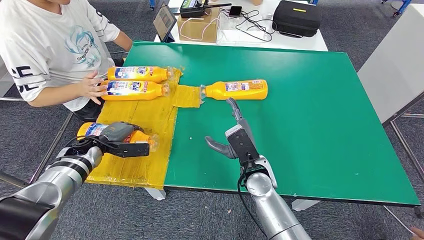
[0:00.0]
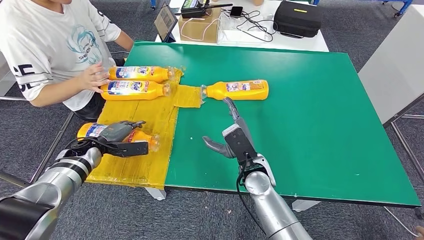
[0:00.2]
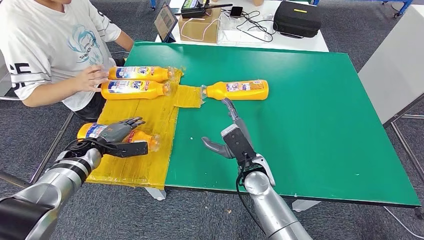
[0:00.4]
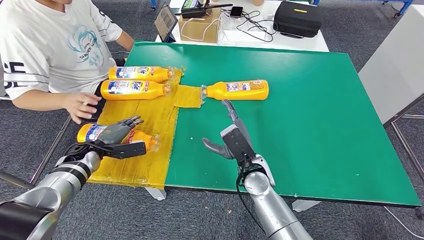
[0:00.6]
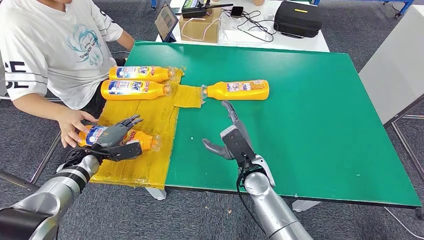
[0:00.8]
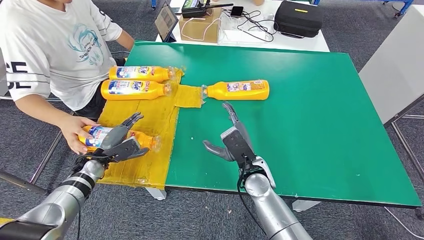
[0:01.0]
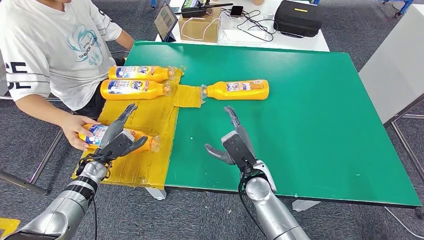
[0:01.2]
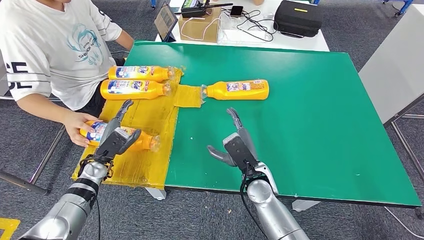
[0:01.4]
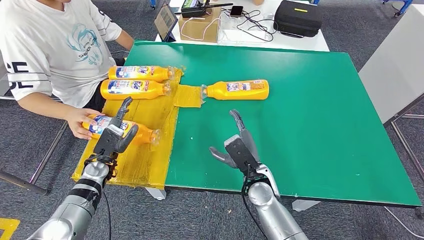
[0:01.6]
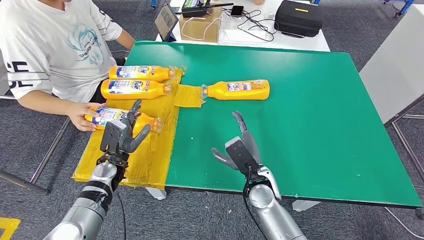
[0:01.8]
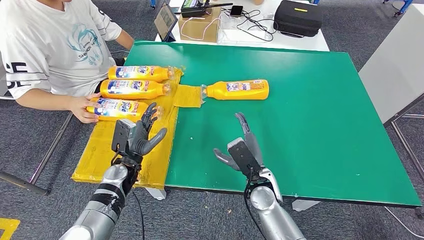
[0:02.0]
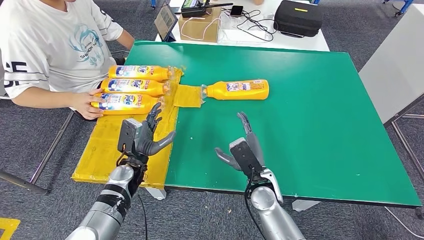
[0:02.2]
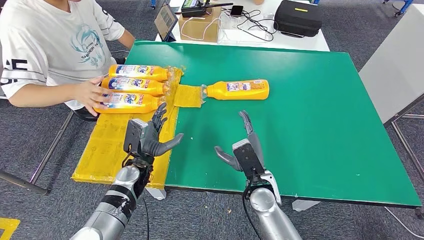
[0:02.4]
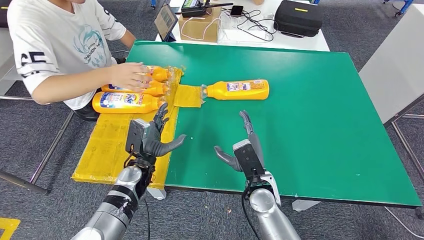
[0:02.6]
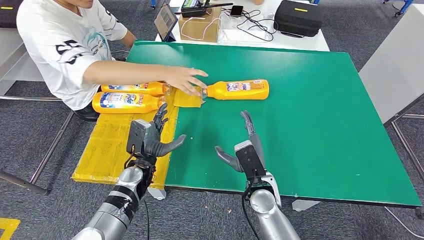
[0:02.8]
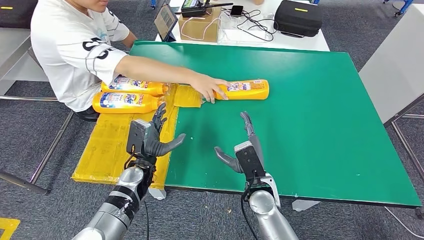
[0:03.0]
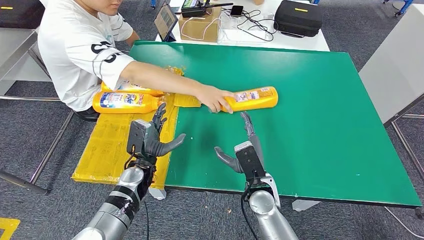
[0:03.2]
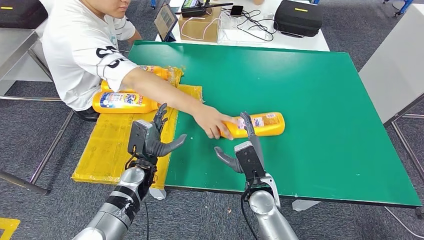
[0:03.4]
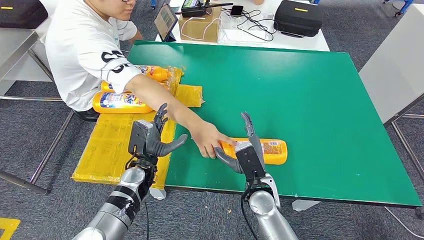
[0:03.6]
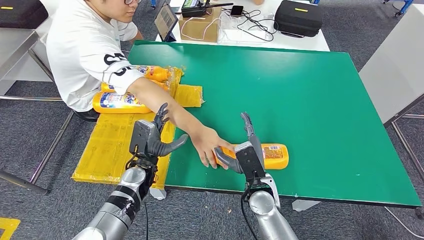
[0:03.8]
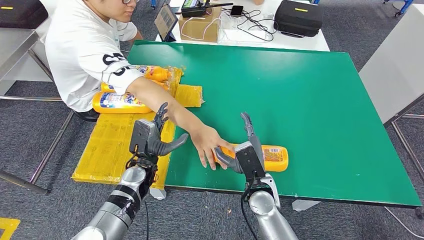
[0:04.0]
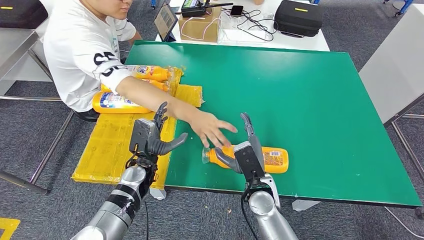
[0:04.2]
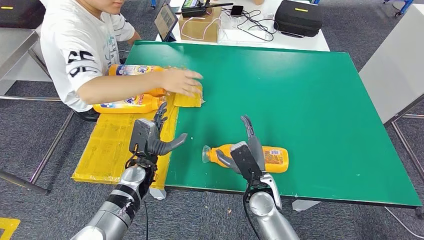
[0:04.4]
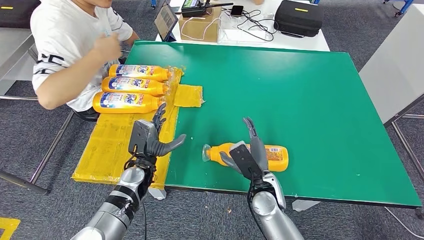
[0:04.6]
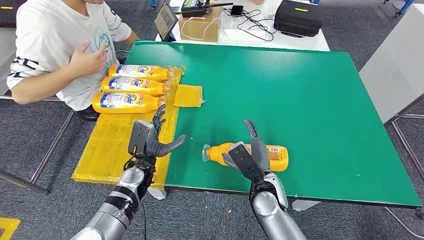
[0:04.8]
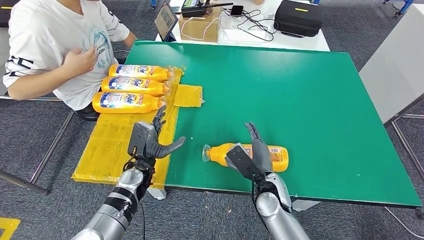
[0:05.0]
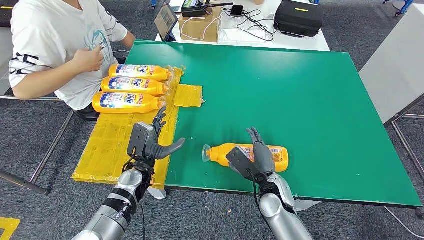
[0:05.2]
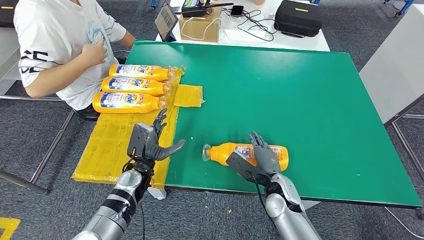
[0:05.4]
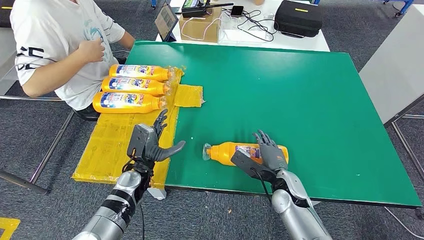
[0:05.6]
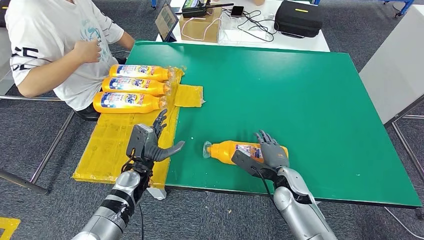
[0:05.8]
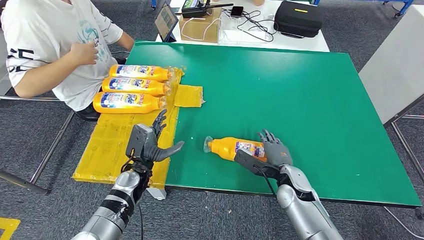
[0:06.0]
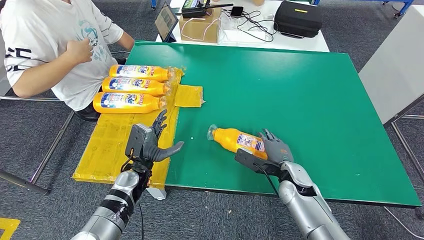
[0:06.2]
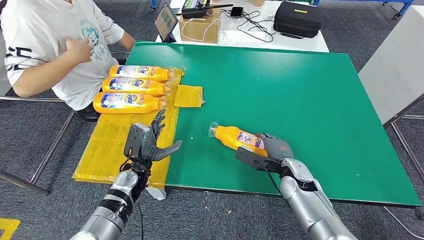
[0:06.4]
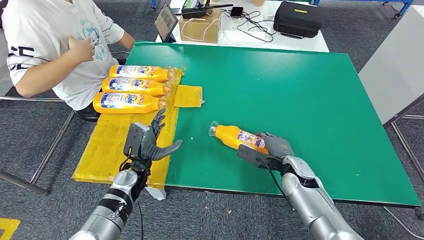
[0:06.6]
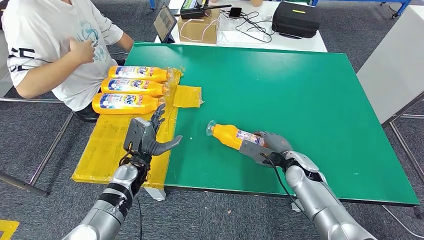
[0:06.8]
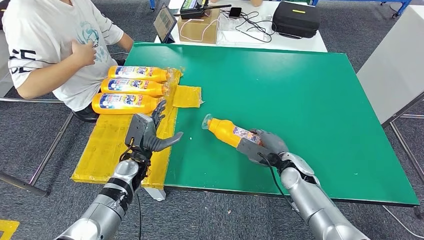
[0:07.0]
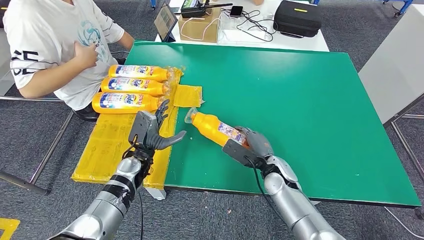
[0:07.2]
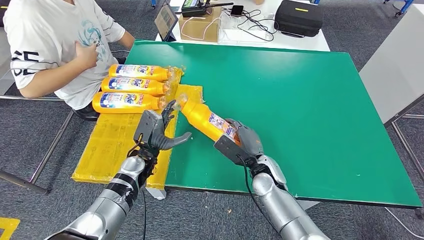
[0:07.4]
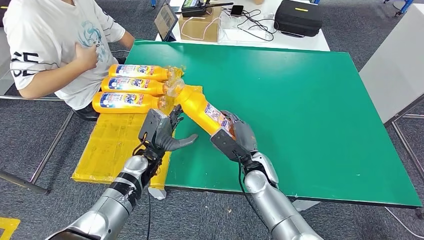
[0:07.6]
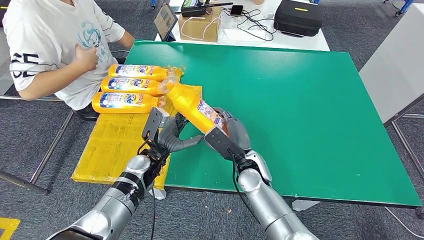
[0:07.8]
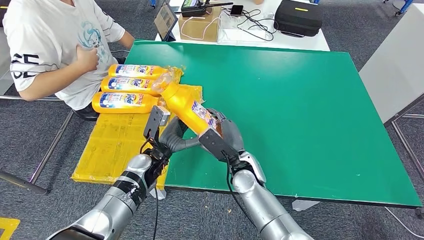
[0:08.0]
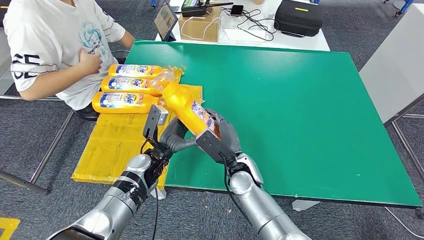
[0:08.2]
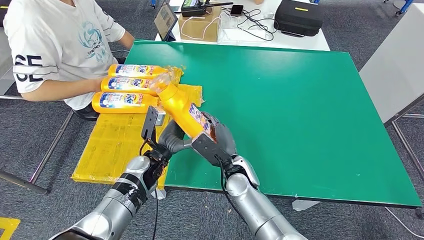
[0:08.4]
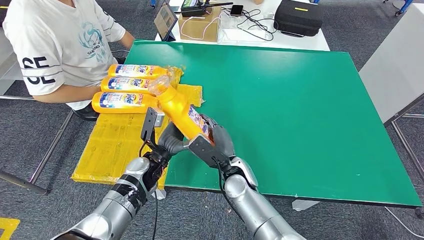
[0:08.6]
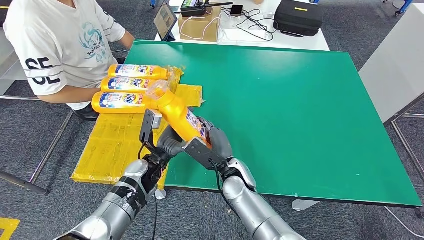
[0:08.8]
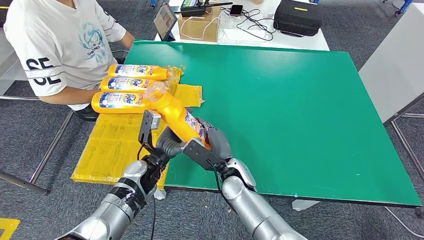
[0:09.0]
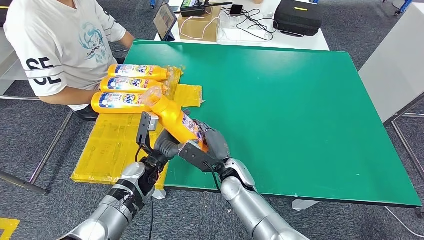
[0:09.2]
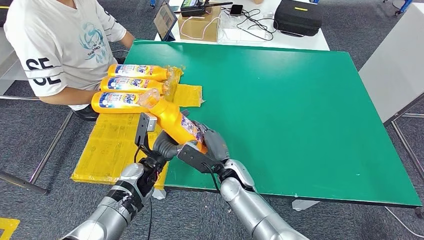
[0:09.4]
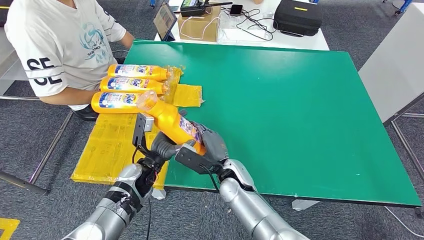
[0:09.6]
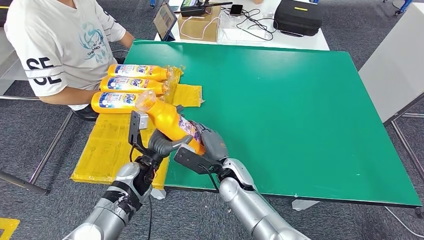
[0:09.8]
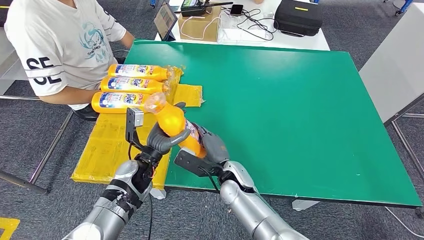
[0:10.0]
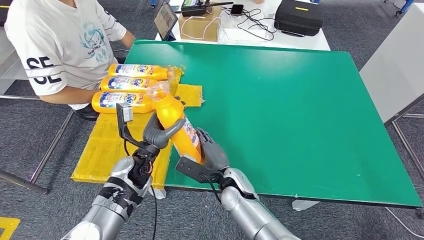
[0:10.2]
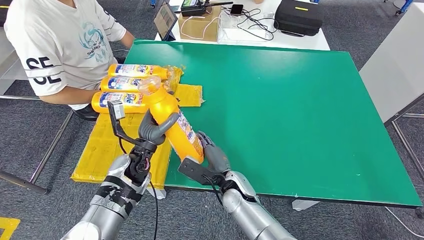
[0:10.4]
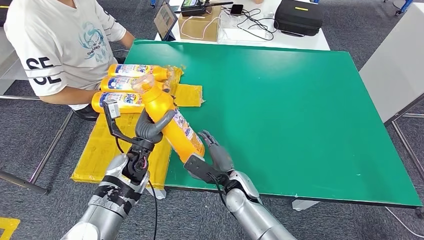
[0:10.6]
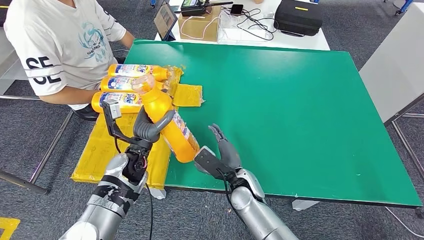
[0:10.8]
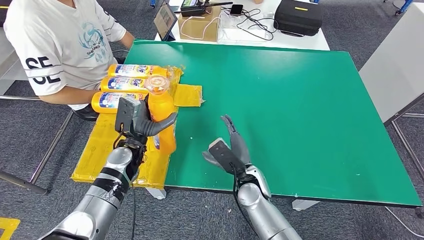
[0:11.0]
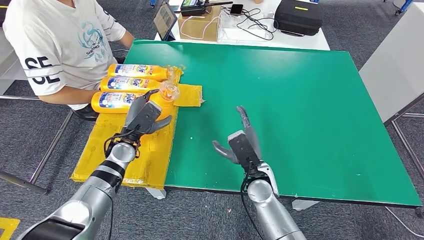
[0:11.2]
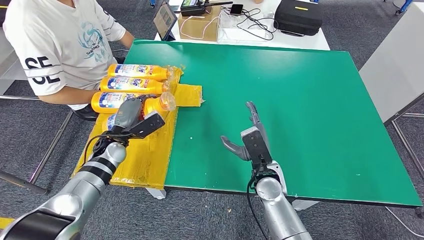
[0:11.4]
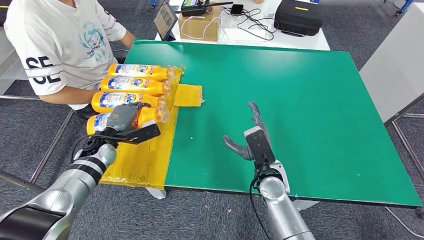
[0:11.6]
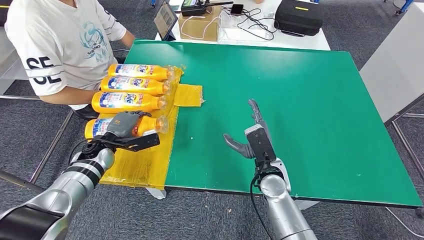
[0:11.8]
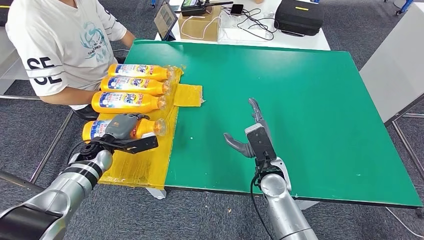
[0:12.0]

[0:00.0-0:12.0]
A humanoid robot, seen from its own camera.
Step, 0:01.2 to 0:07.6: Pick up the fast-moving consumer goods bottle from the table.
0:00.0 to 0:01.6: The left hand ends up some 5 cm from where it was.
0:03.0 to 0:04.4: The hands stay close to where they were, moving slightly.
0:06.0 to 0:07.6: The right hand is displaced to the left by some 10 cm.
0:07.6 to 0:09.0: The right hand travels to the left by about 5 cm.
0:10.4 to 0:12.0: The left hand is displaced to the left by approximately 15 cm; the right hand travels to the right by approximately 10 cm.

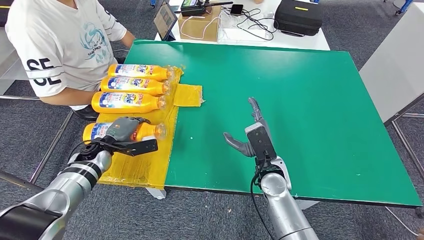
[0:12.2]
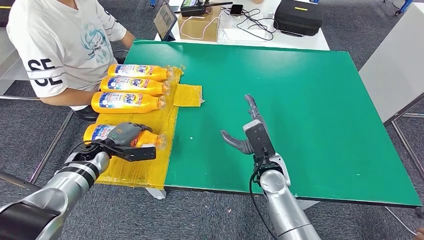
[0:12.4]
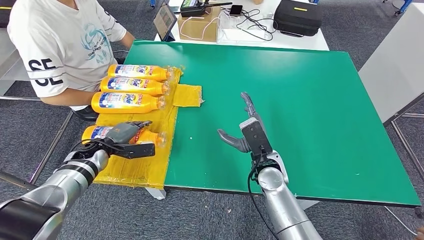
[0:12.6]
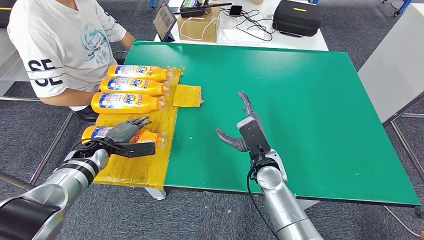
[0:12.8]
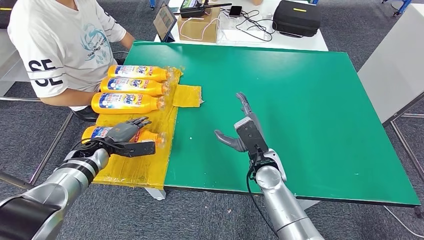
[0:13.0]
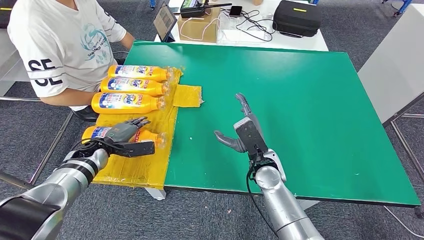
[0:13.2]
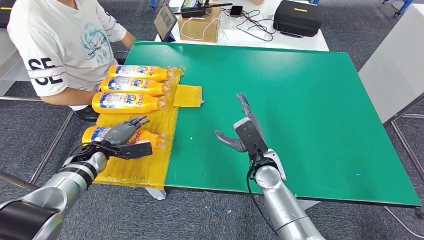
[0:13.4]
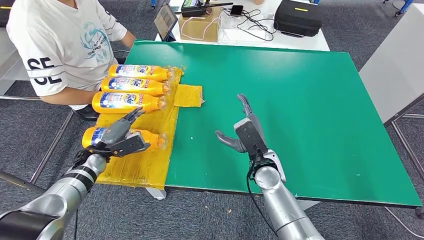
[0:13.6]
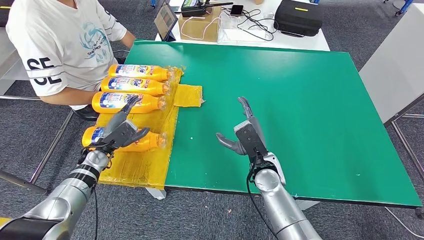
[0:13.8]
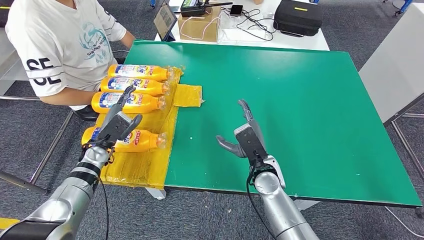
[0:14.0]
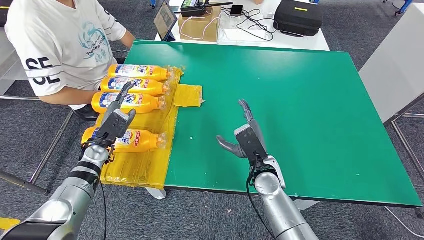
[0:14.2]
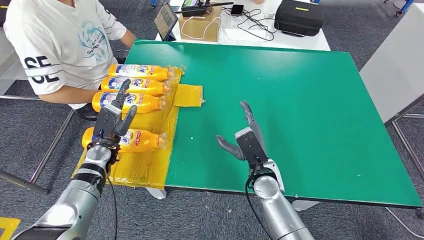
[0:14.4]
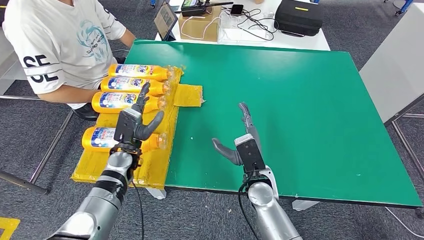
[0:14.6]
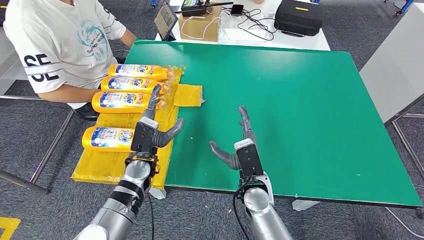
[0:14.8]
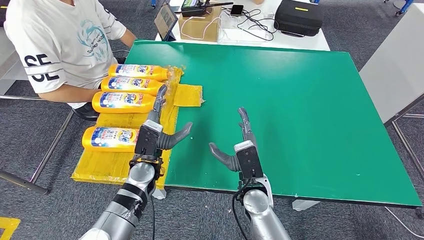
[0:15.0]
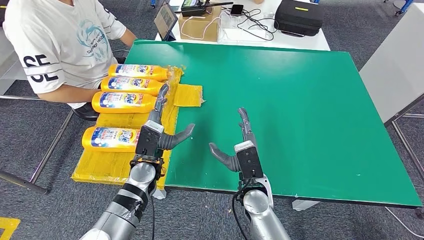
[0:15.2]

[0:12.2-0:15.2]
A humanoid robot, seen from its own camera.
Step, 0:12.2 to 0:15.2: Flip the fast-moving consumer goods bottle to the front side.
0:13.8 to 0:15.2: The right hand moves backward, some 5 cm; the left hand moves to the right, about 20 cm.
